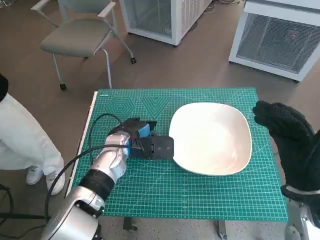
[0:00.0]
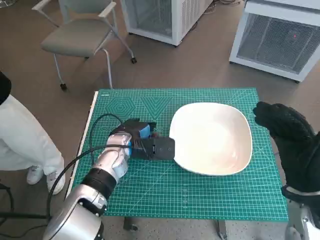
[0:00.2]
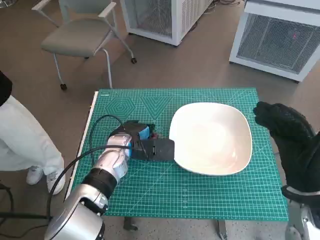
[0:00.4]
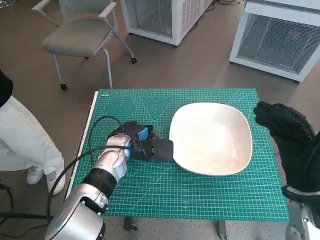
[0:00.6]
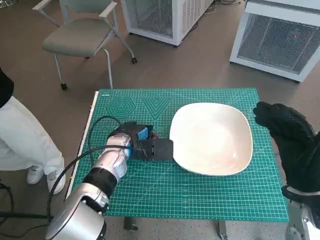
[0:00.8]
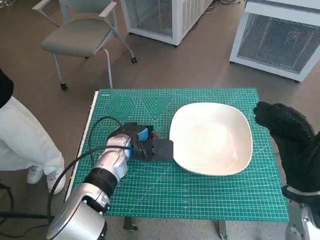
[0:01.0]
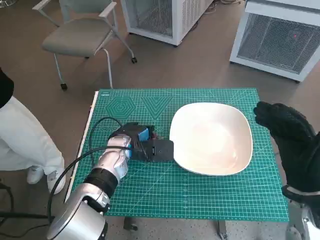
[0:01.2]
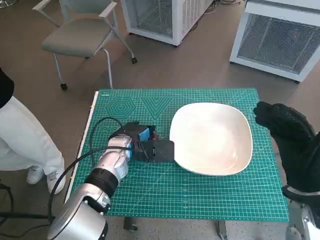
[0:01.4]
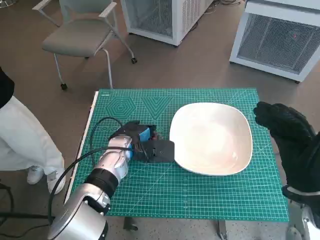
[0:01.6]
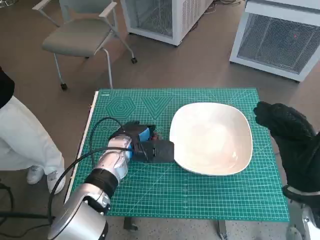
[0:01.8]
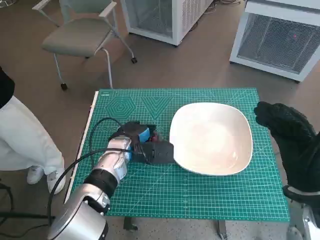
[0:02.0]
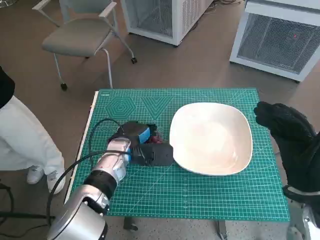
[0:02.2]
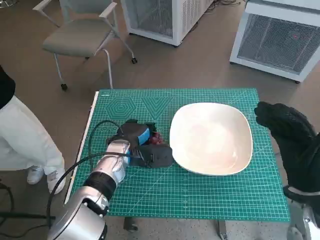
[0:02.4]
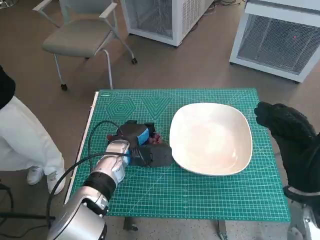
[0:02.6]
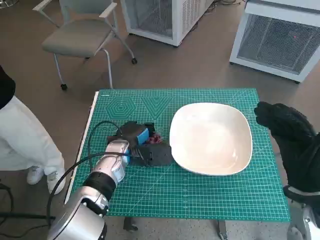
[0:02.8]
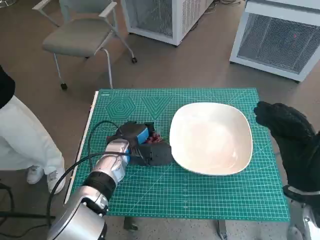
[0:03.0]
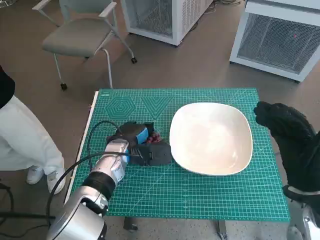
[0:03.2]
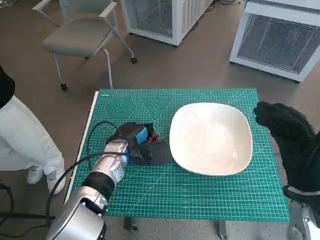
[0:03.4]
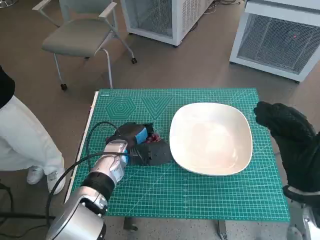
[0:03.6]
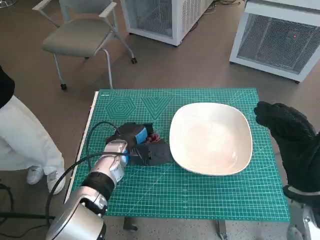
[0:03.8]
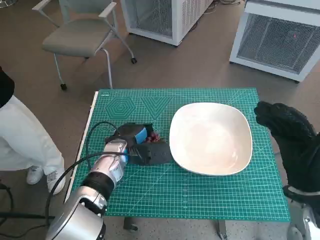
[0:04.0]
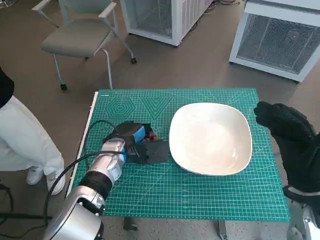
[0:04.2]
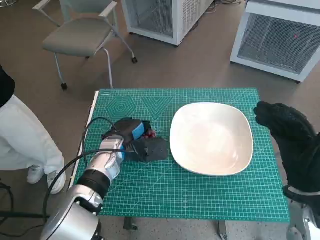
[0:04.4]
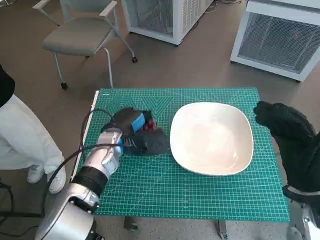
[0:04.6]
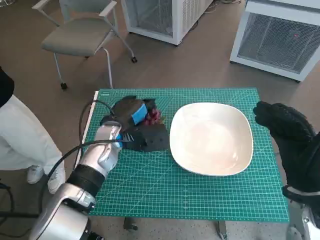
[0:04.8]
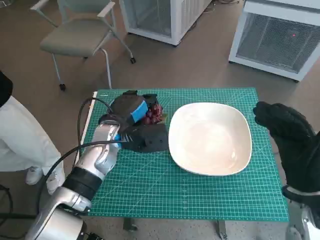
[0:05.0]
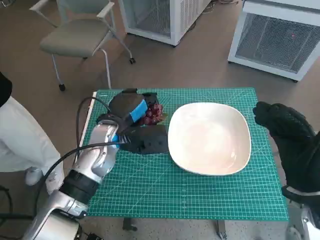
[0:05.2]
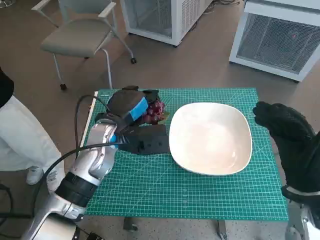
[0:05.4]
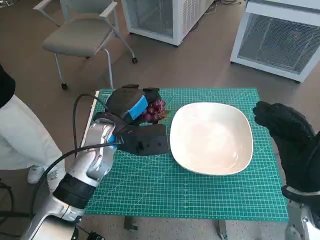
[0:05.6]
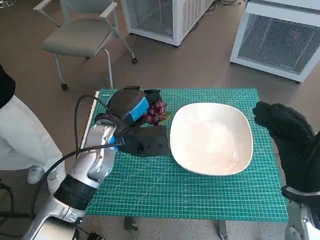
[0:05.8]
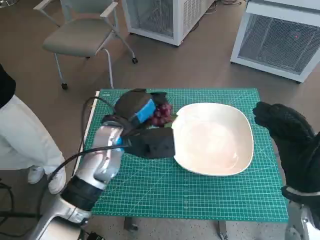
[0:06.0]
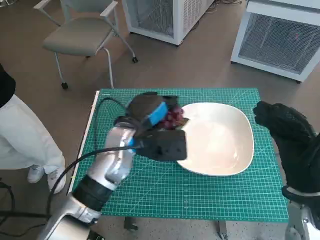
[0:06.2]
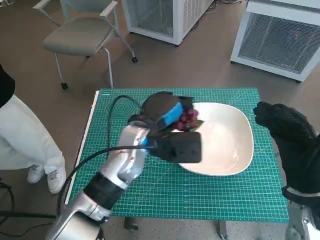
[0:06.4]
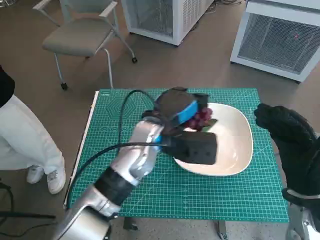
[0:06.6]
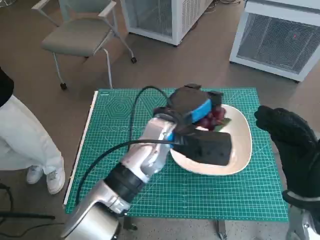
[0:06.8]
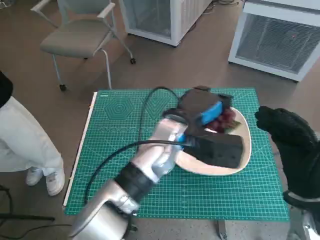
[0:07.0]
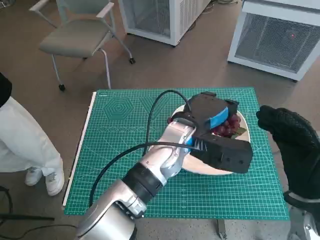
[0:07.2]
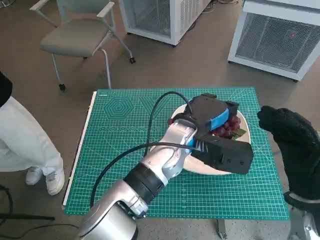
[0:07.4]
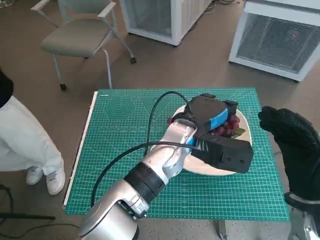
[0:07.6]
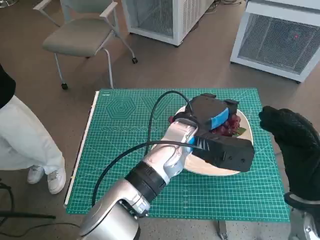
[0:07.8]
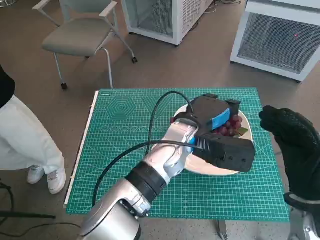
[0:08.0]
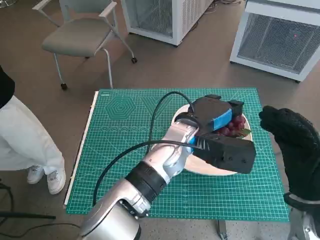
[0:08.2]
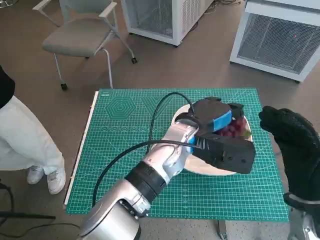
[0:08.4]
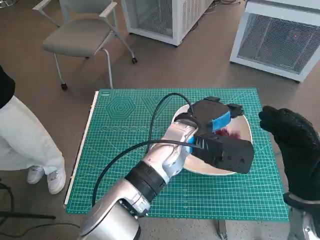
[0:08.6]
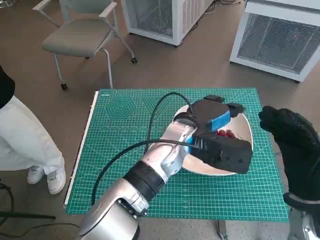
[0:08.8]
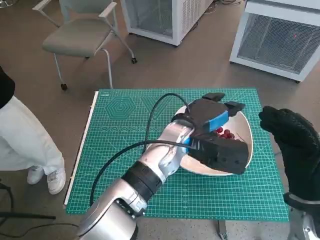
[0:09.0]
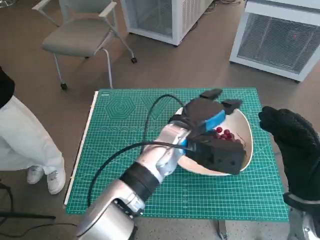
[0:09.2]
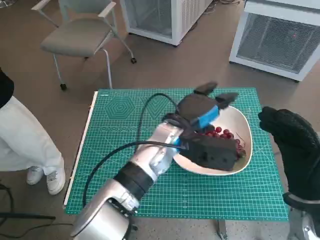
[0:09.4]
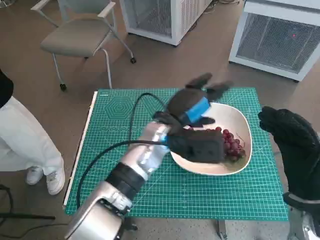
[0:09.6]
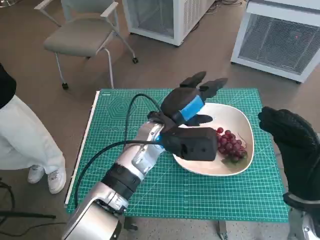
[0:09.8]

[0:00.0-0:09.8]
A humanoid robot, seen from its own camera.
Task of the whole recording: Pick up the grapes and put them on the plate.
Step, 0:01.6 to 0:08.8: Place the grapes in the plate with left hand.
0:00.0 to 0:02.8: There are only small adjustments of the hands.
0:02.8 to 0:04.2: Both hands stay about where they are.
0:04.2 to 0:05.6: The left hand is displaced upward by some 10 cm.
0:05.6 to 0:07.0: The left hand heads to the right, covering approximately 15 cm.
0:07.0 to 0:08.4: The hands stay close to where they were, moving slightly.
0:08.4 to 0:09.8: The left hand goes approximately 5 cm to the left.

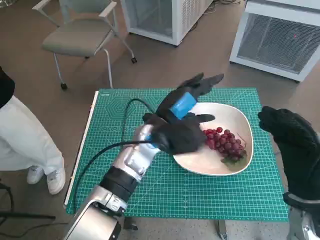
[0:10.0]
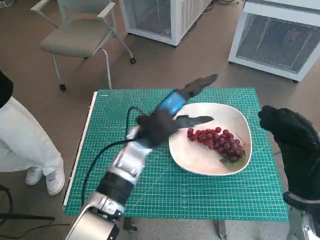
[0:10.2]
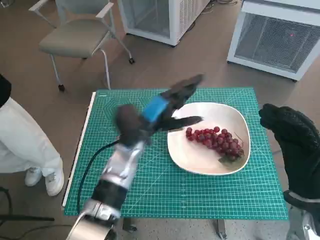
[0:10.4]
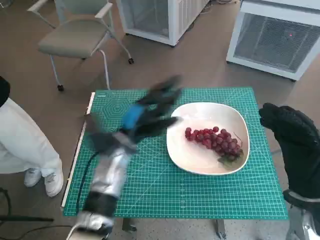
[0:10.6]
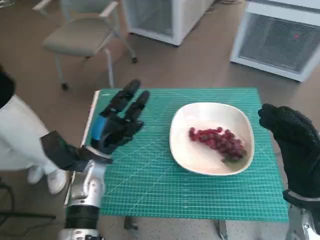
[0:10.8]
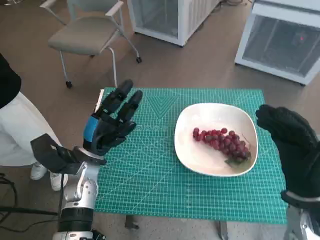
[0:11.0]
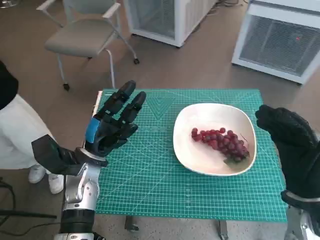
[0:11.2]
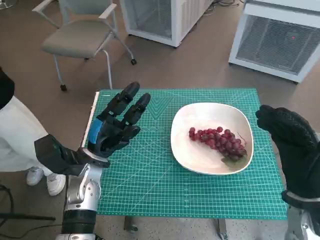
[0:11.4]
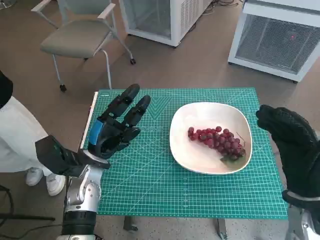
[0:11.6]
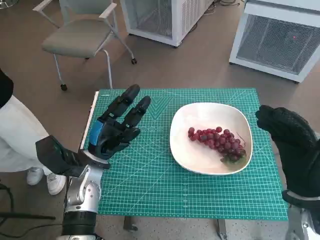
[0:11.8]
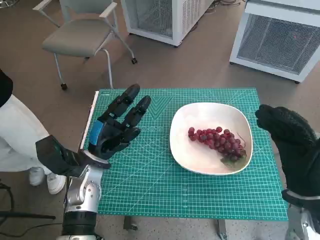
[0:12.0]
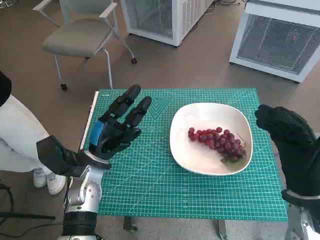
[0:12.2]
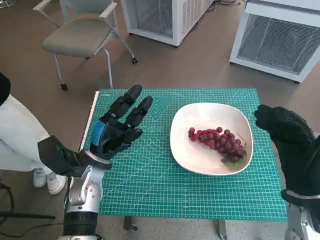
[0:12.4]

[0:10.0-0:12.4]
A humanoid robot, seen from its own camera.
Task of the whole recording: Pick up the grapes and put them on the plate.
0:10.0 to 0:11.2: The left hand shifts approximately 15 cm to the left and downward.
0:11.2 to 0:12.4: Both hands stay about where they are.
